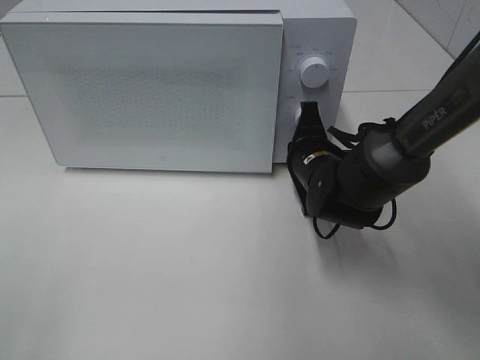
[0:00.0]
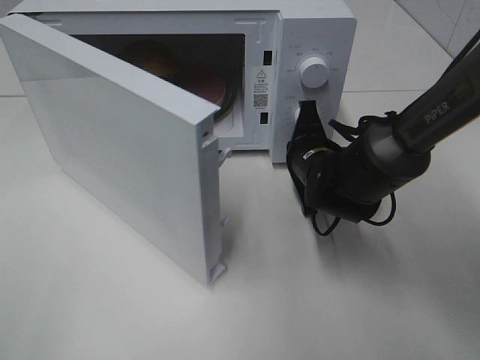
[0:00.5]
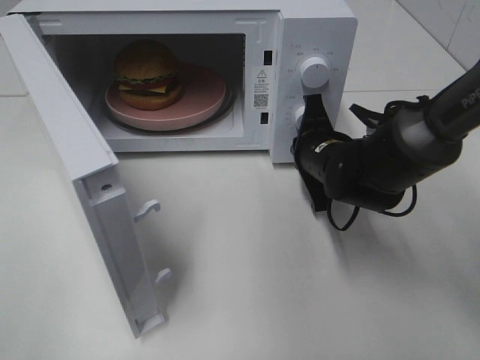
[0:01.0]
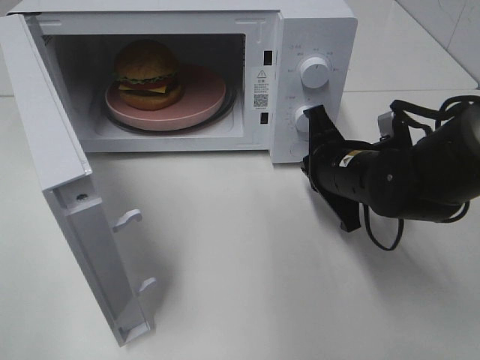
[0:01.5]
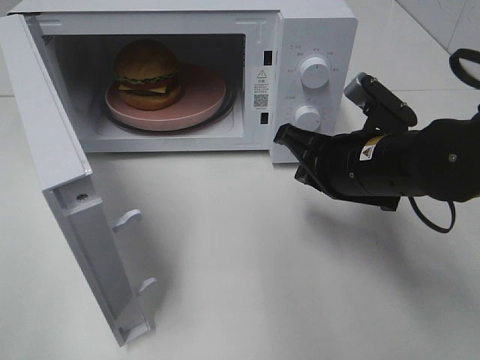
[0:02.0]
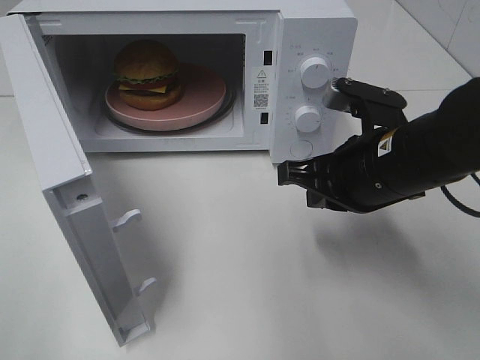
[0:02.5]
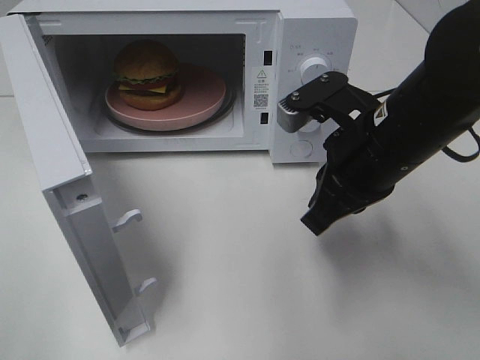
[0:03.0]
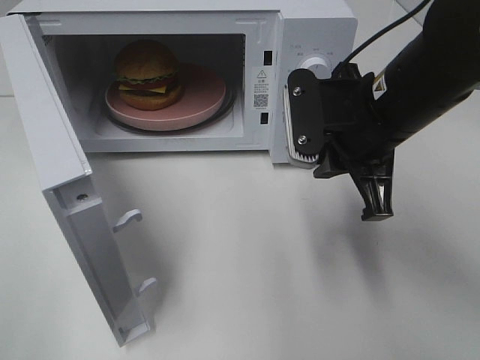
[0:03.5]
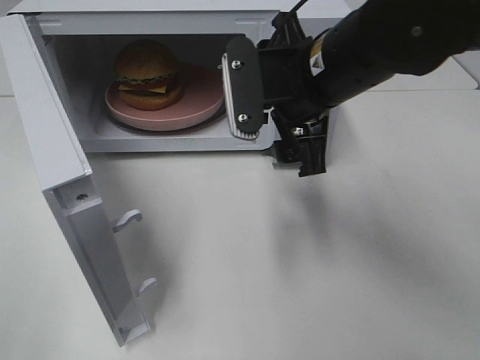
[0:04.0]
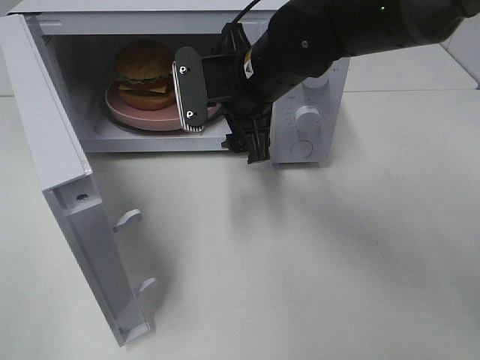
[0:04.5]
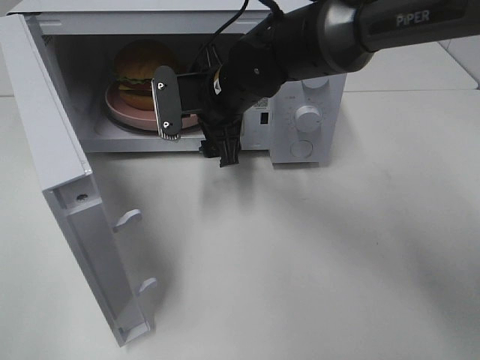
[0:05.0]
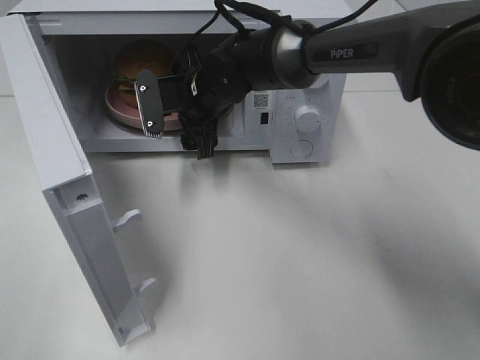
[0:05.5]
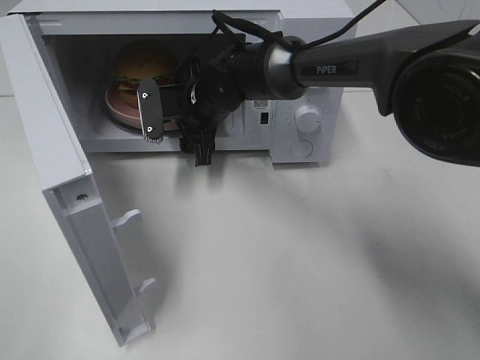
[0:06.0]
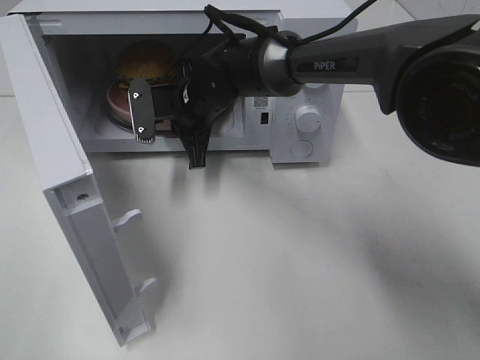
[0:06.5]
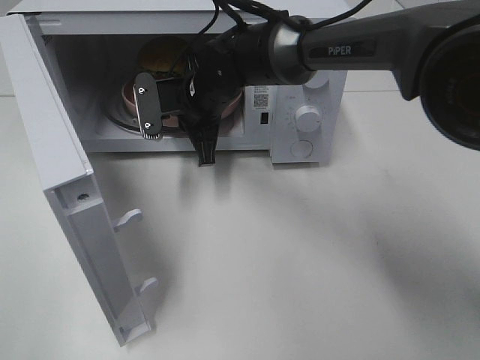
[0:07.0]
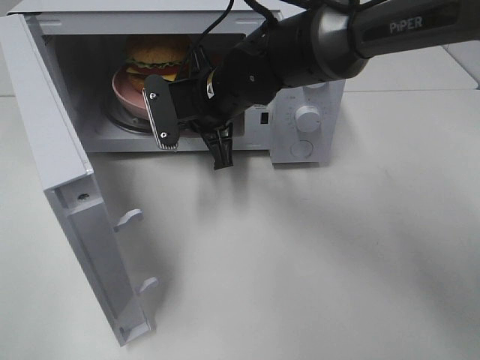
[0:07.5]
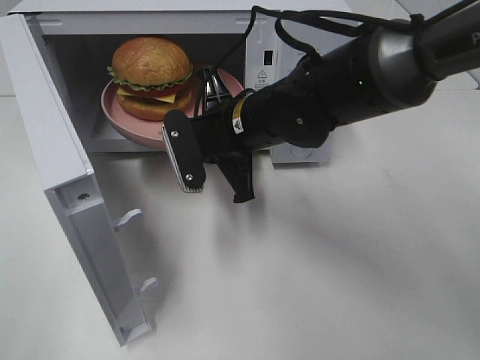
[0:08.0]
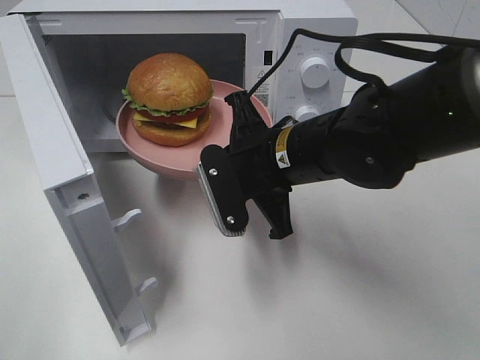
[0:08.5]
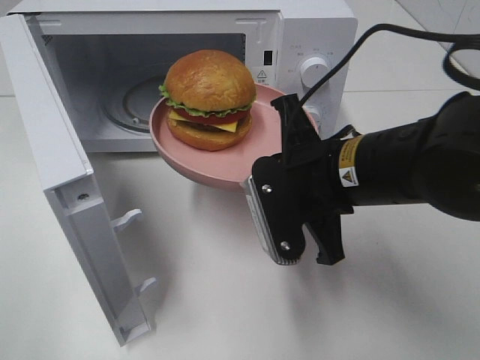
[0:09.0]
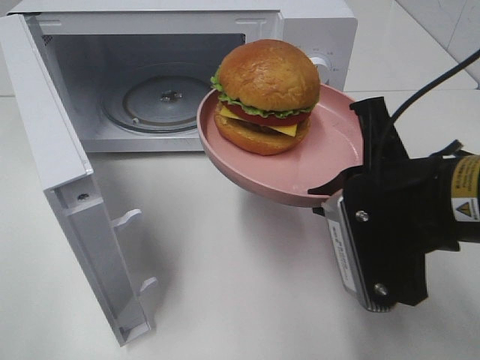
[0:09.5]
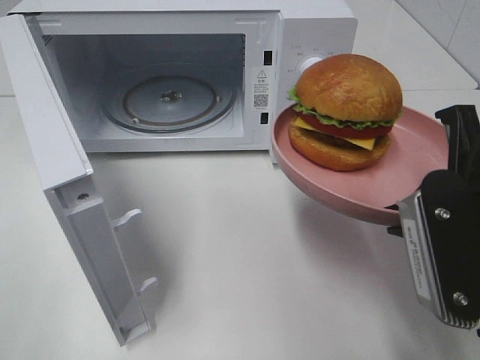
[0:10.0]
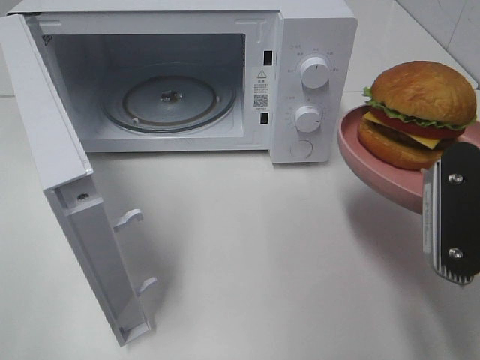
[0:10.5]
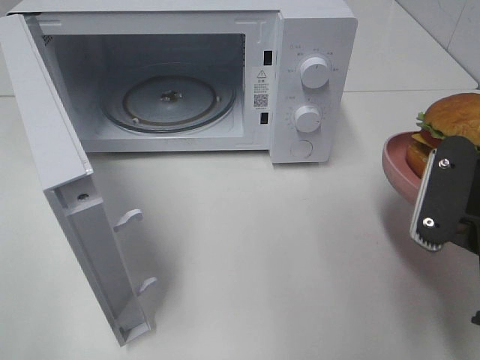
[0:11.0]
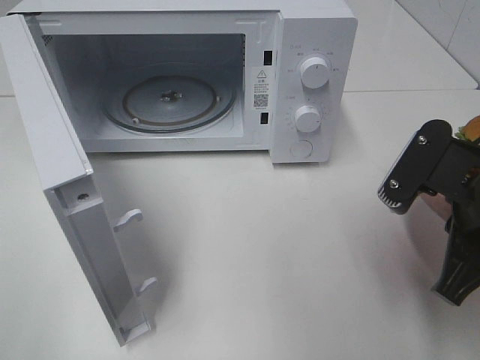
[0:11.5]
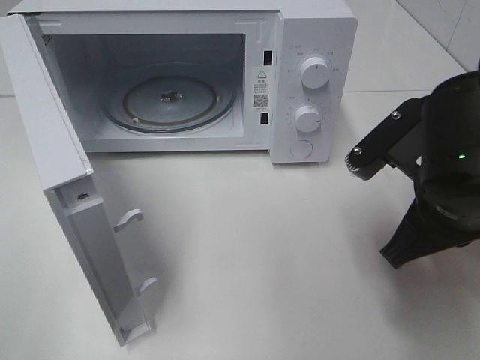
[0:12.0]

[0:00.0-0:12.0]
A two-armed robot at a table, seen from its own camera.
Task of the whole recording: Heat the burger.
Step, 0:01.5 to 0:06.5: Right hand: grab the plate with the hamburger.
0:00.0 to 0:02.0: The right gripper moves backward and upward, roughly 10 cm.
0:02.0 to 0:04.0: The right gripper goes approximately 10 cm upward and to the left, and opens up.
0:04.0 to 0:06.0: The right gripper goes some 20 cm forward, downward and to the left.
0:06.0 to 0:08.0: The right gripper heads backward and to the right, covering approximately 10 cm, and closes its fingers.
0:08.0 to 0:10.0: The right gripper travels backward and to the right by approximately 25 cm.
0:10.0 to 0:12.0: The right gripper heads forward, covering roughly 5 cm.

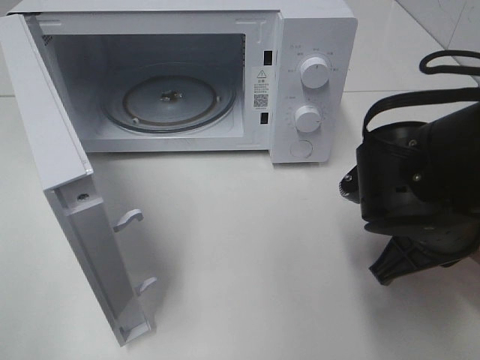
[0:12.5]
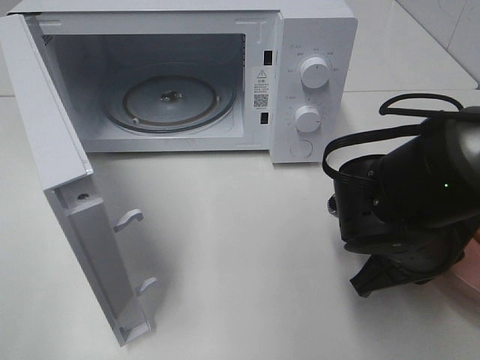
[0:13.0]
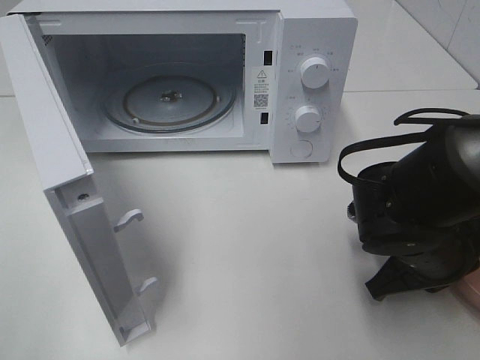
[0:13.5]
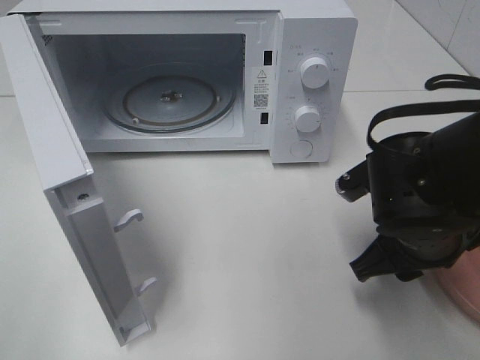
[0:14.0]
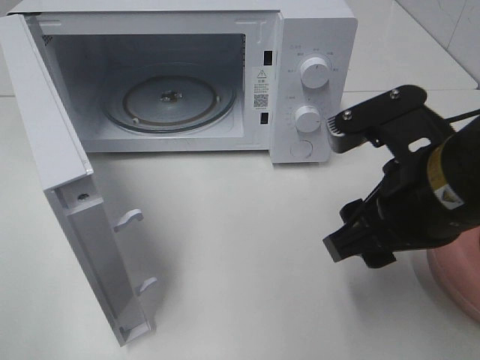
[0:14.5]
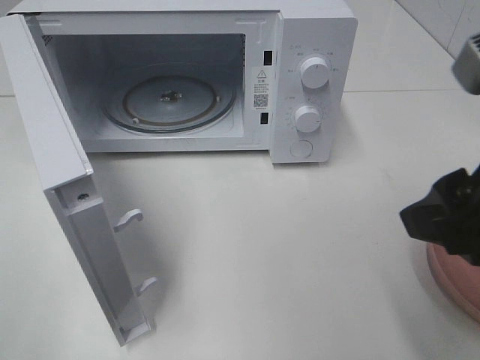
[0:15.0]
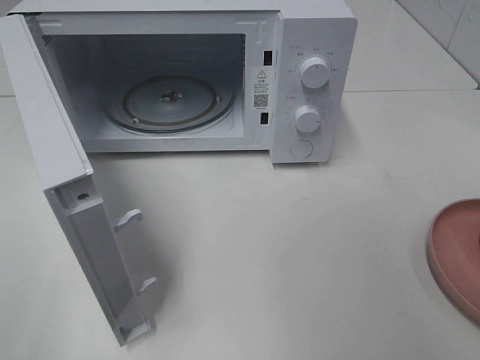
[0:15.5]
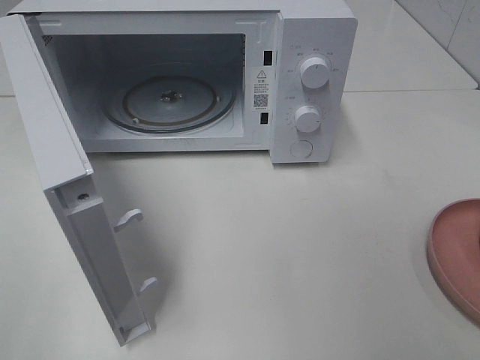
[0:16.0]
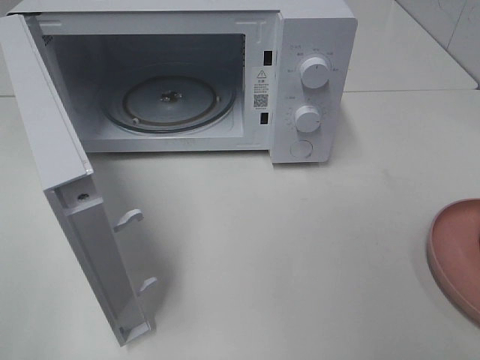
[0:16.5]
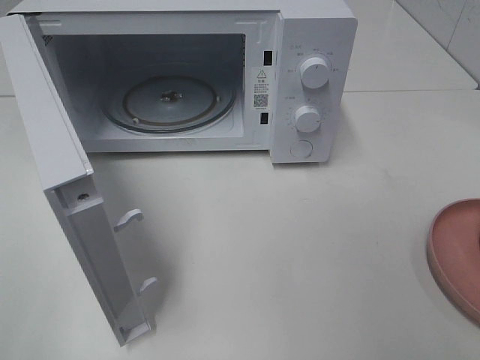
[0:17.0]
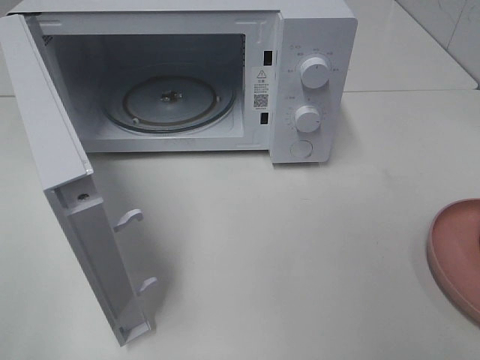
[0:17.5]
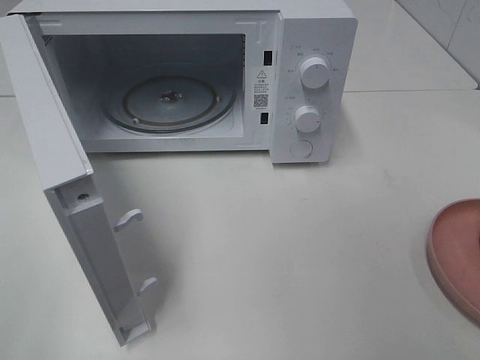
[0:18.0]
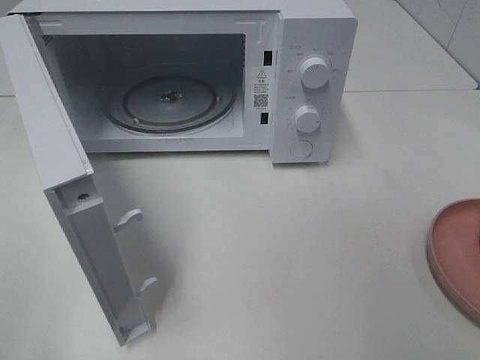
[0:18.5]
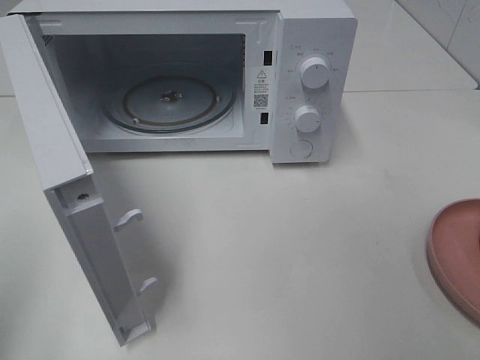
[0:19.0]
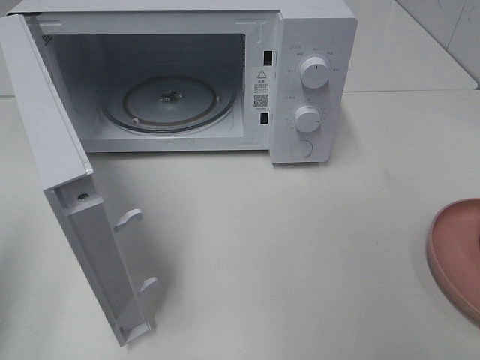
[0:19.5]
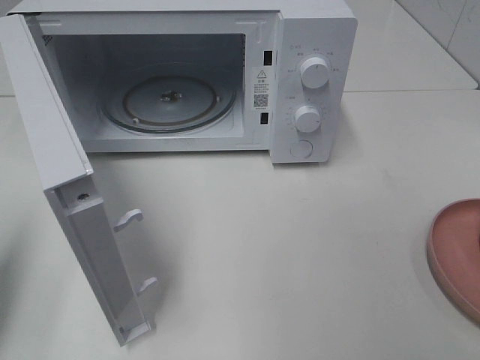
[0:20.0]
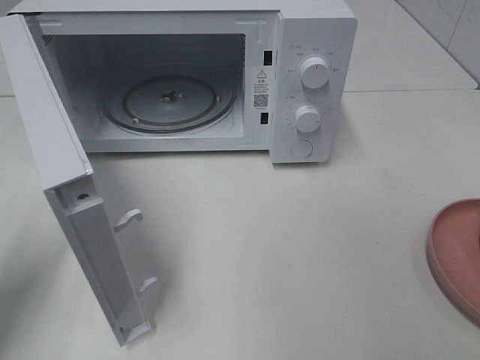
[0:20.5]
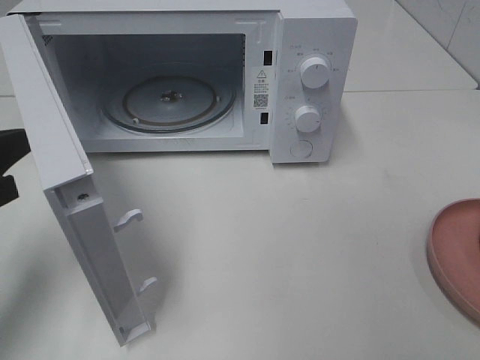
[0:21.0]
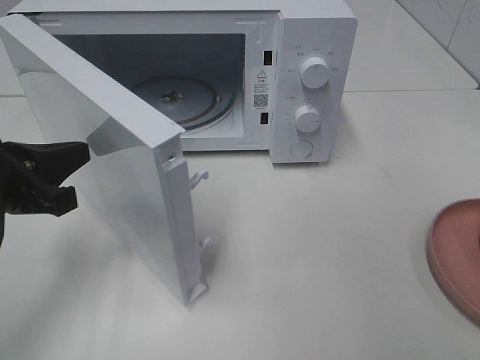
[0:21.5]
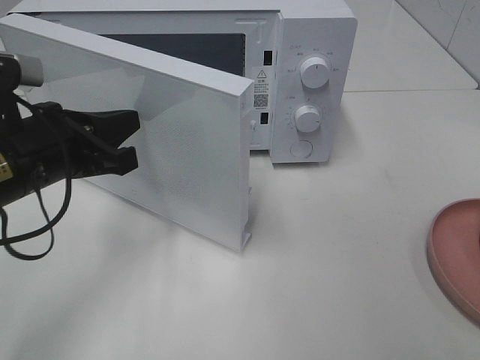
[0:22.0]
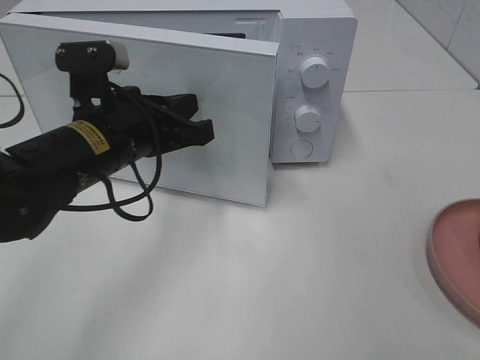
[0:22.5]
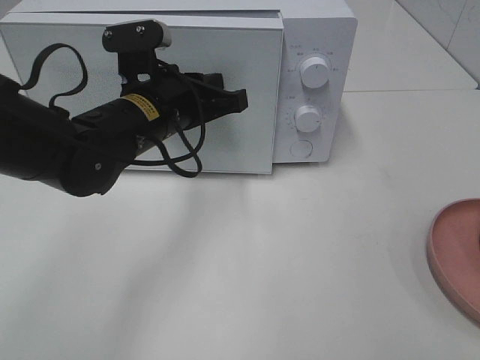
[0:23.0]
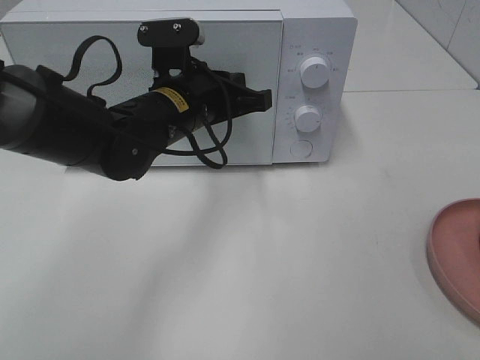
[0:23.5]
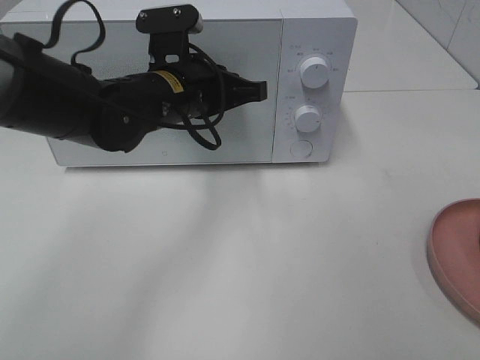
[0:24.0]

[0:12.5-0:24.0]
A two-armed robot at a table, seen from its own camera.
Task of the whole recording: Heat the burger.
0:12.5 to 0:14.5: The right gripper shifts some 10 cm upward, and opens up.
0:14.5 to 0:16.5: The right gripper travels backward and to the right by about 25 cm.
0:18.5 to 0:20.0: The left gripper heads forward and downward, covering roughly 15 cm, and closes.
0:20.0 to 0:22.0: The left gripper goes approximately 15 cm to the right and forward.
0:22.0 to 0:24.0: The left gripper is displaced to the right and forward by roughly 15 cm.

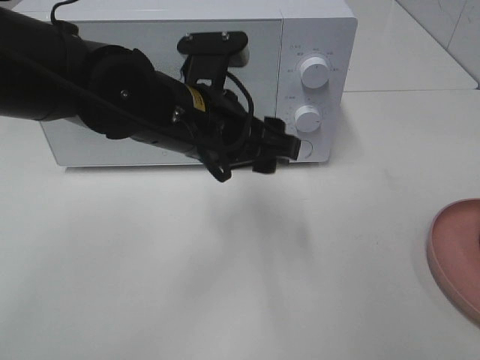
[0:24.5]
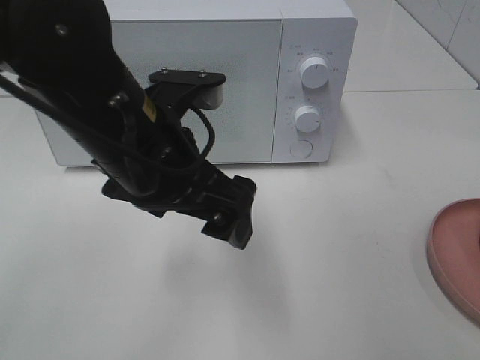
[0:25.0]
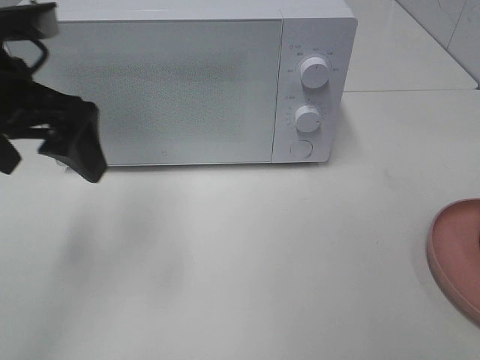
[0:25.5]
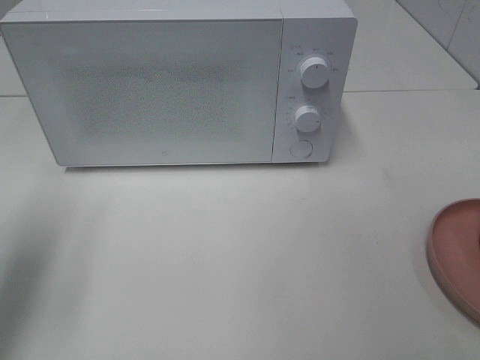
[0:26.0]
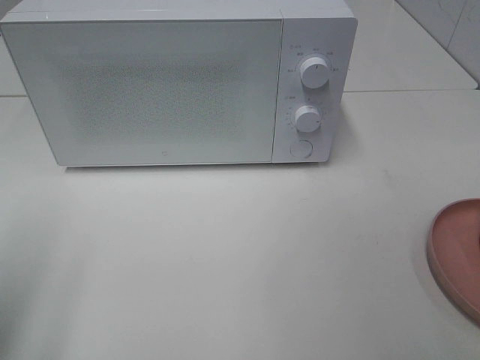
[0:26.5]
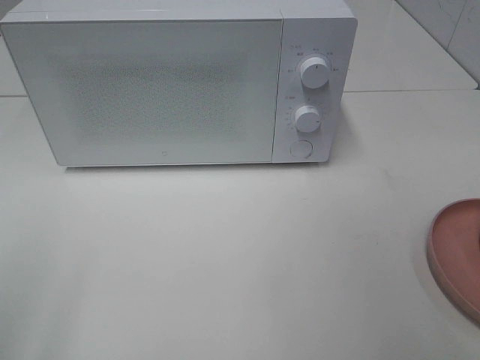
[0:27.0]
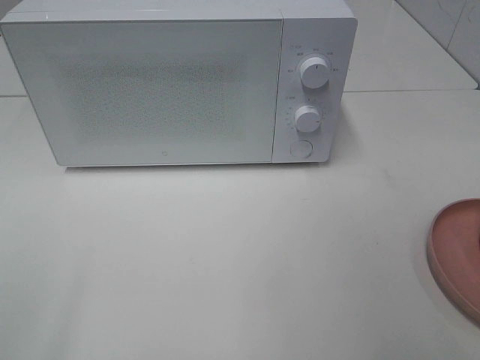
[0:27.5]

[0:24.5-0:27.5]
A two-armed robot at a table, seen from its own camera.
Task of the whole recording: Heat the burger.
0:24.5 to 0:26.0: The left gripper shifts approximately 25 cm to the left.
0:26.0 to 0:27.5: The left gripper travels backward by some 20 cm.
